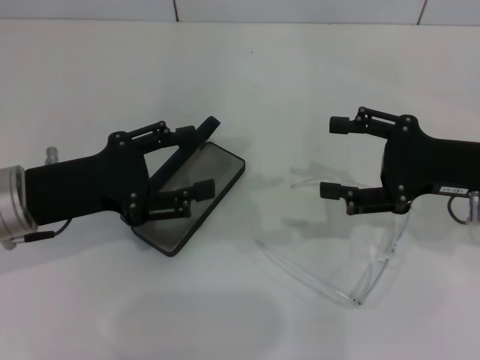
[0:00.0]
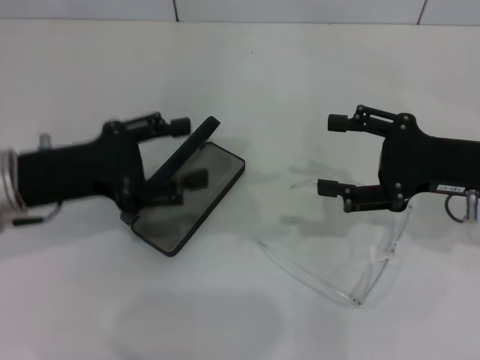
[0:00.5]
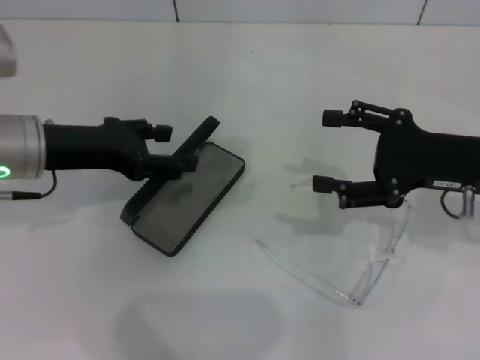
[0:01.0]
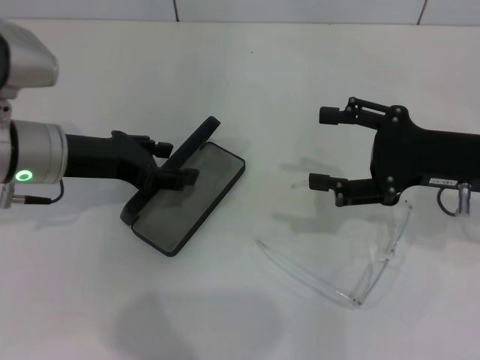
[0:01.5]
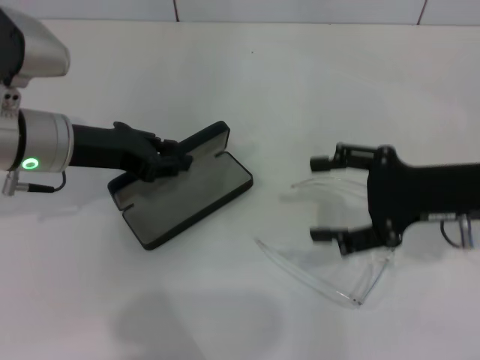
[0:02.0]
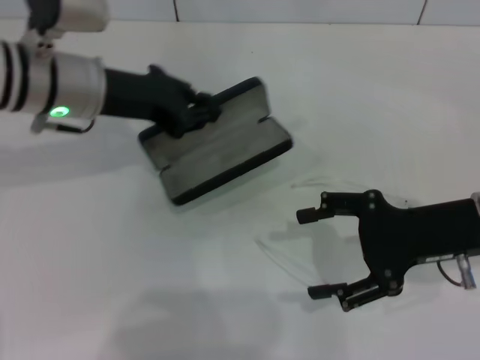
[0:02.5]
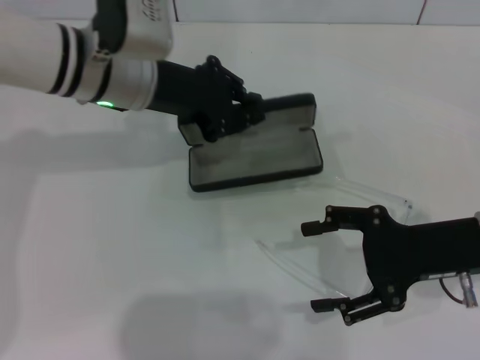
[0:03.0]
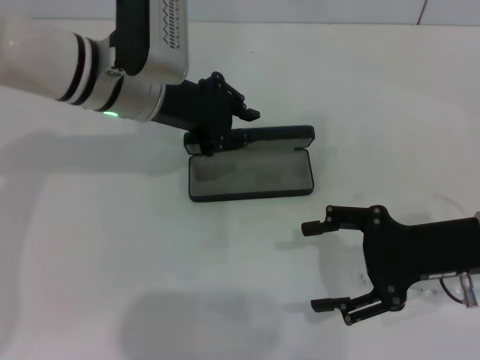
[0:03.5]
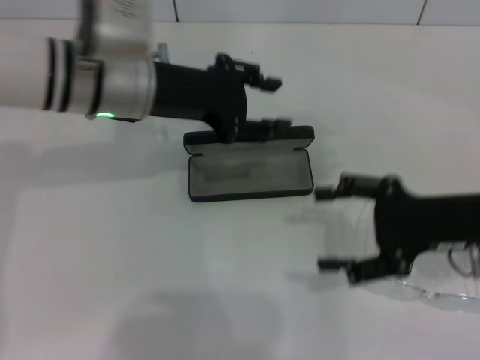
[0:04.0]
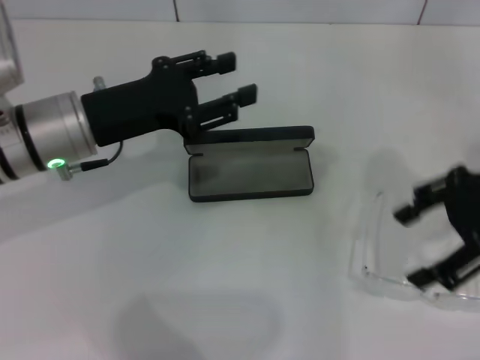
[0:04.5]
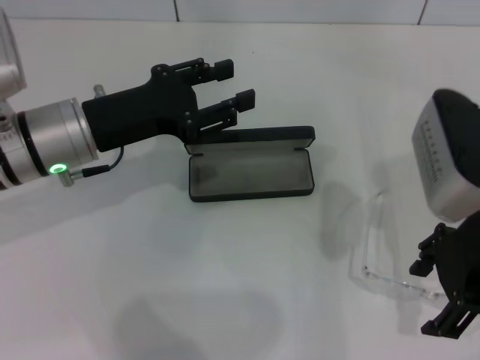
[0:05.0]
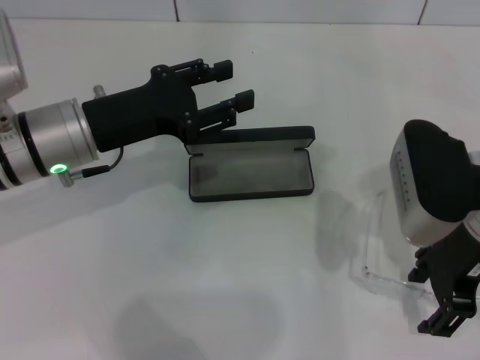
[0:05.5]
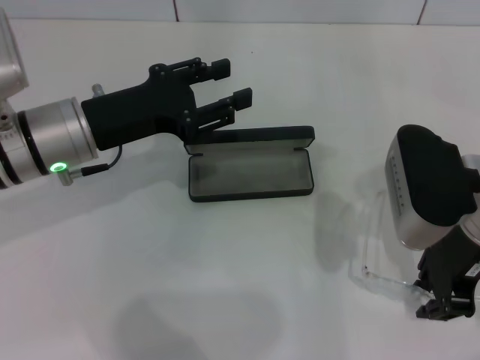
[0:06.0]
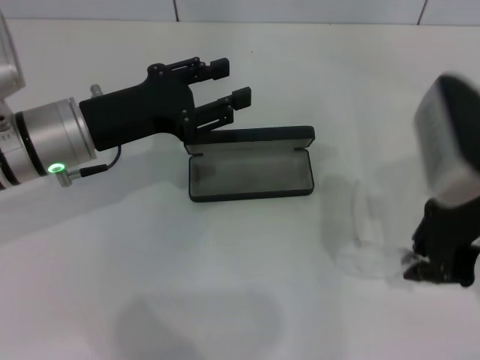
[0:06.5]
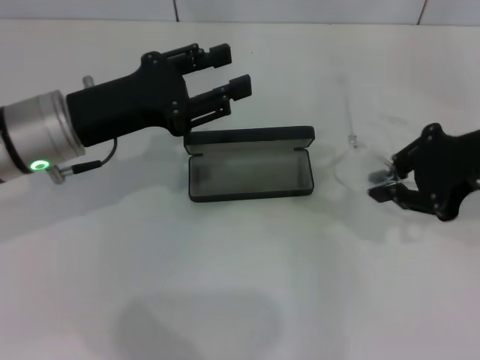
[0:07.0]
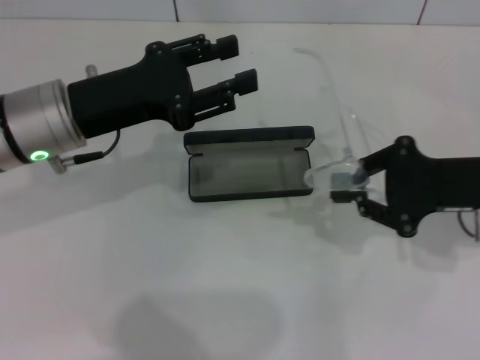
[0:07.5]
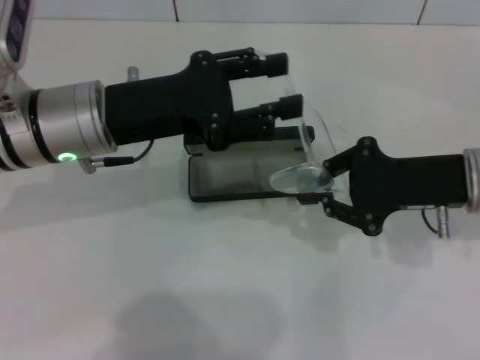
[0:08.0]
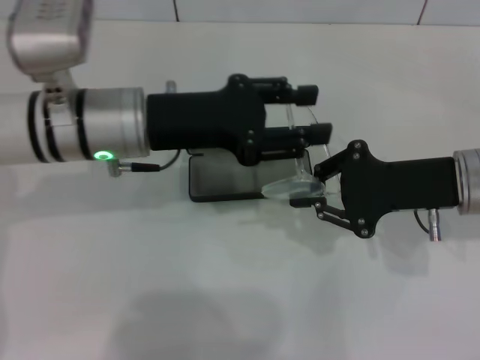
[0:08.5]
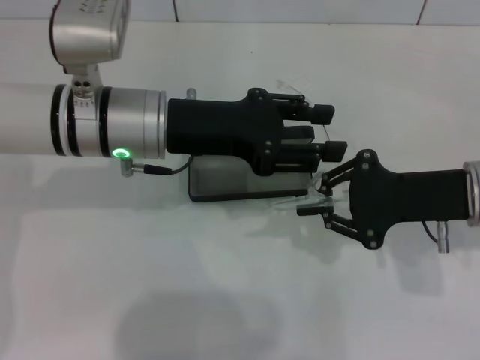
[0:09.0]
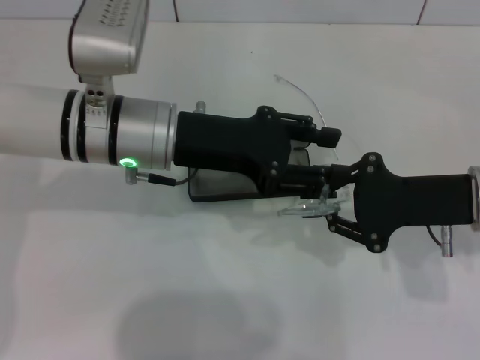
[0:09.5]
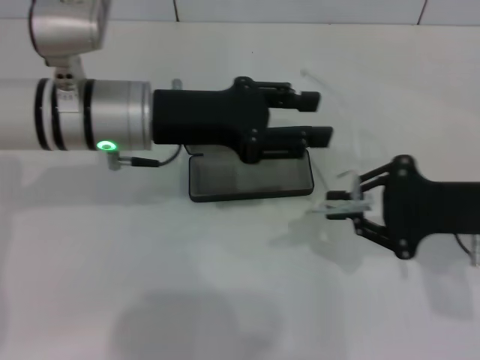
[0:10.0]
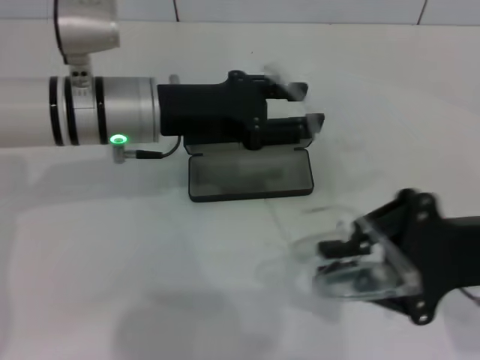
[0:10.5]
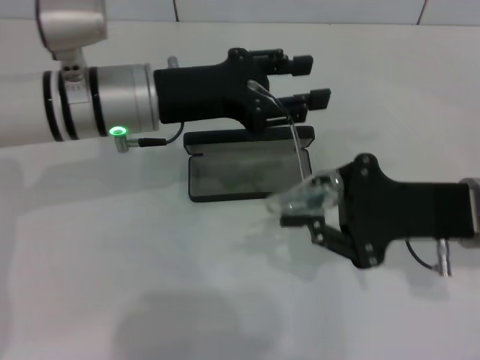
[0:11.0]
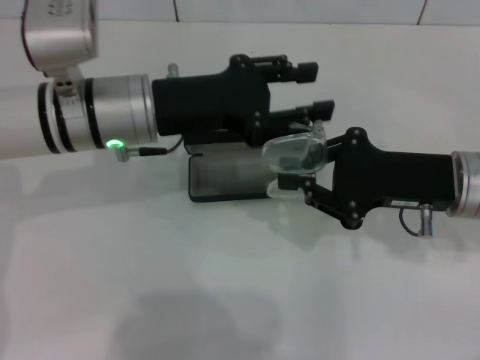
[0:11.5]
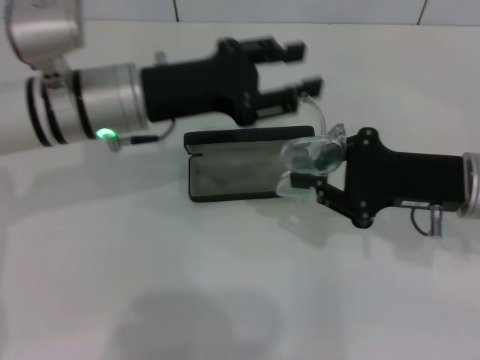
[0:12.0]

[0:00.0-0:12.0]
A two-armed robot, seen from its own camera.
Step, 0:00.0 to 0:01.5: Grab the glasses case with your left hand.
Step, 0:02.0 to 0:03.5: Place the glasses case in the center of the table with your left hand.
Step, 0:04.0 to 0:06.0: Grab the eyeglass frame with your right hand.
Step, 0:06.5 to 0:11.5: Fold the frame with your left hand.
0:00.0 to 0:02.0: The left gripper shifts some 5 cm forward, and closes up.
0:02.0 to 0:04.0: The left gripper shifts about 5 cm to the right, and closes, then opens again.
0:04.0 to 0:06.0: Both grippers move to the left, about 5 cm. The right gripper closes up.
0:06.0 to 0:08.0: The right gripper changes place by roughly 5 cm, and closes.

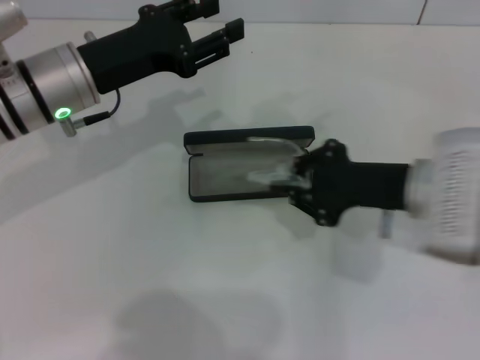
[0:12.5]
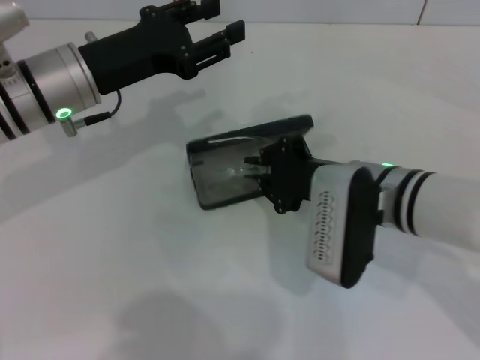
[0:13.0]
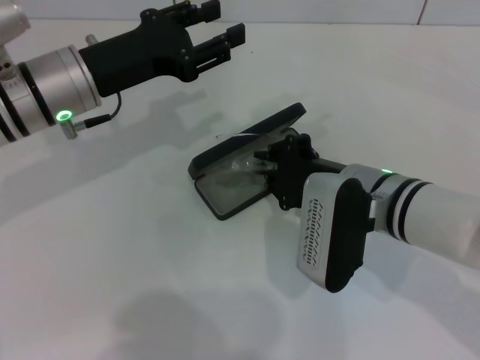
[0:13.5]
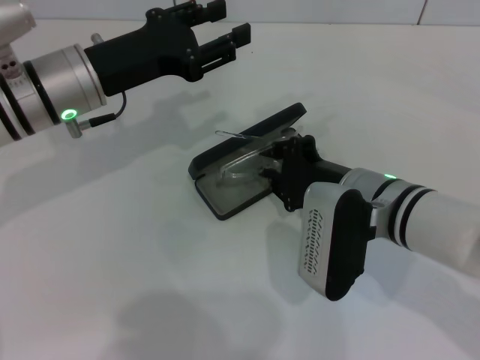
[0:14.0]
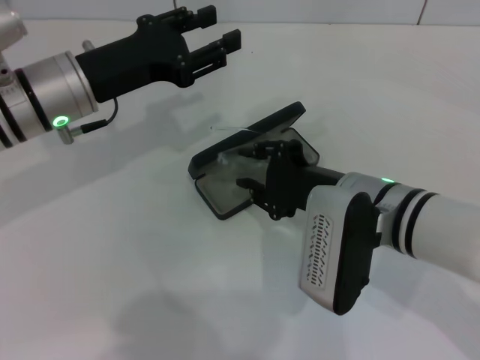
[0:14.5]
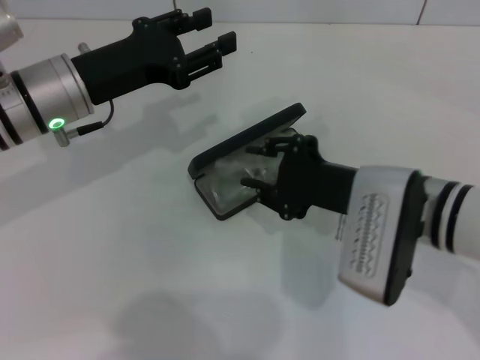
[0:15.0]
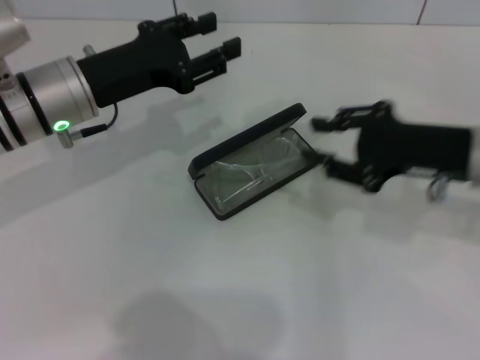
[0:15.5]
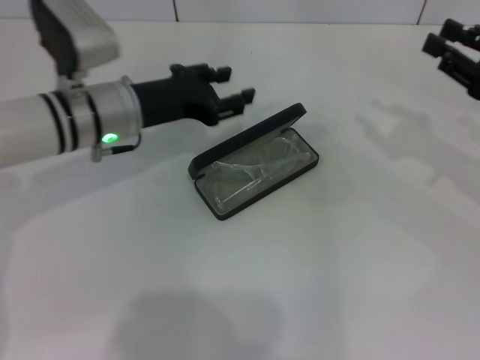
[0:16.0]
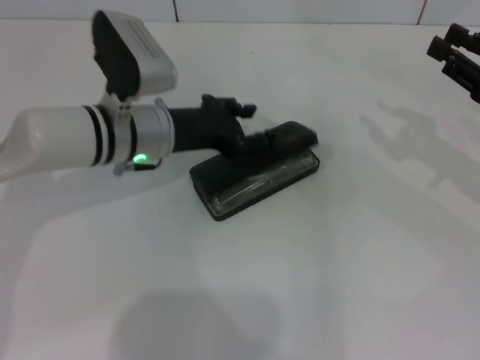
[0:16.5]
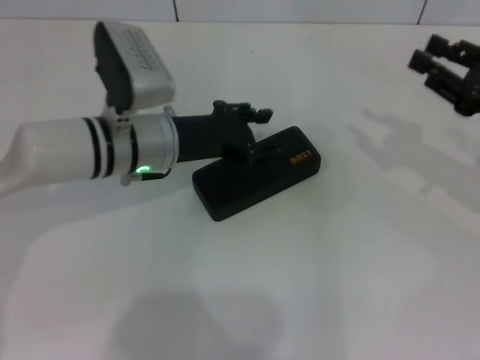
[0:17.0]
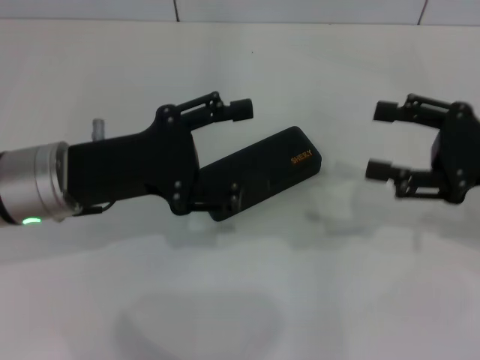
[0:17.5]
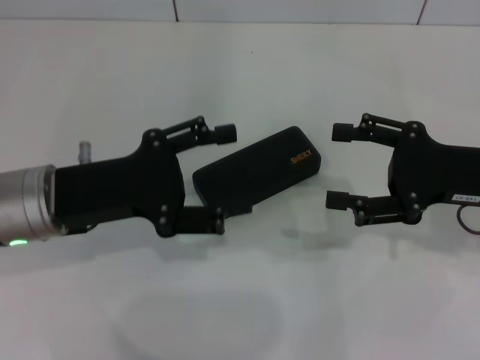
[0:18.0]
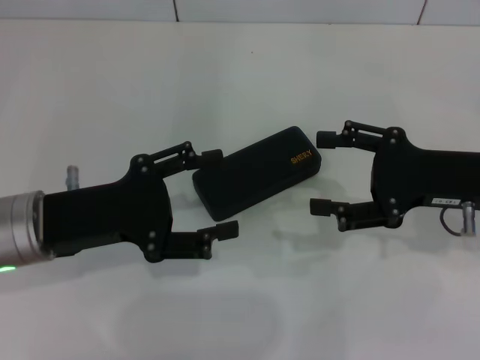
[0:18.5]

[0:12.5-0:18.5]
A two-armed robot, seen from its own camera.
Step, 0:12.5 to 0:15.0: Put the glasses into the case with your right hand.
Step, 0:15.5 to 0:17.0: Close the glasses case with your left hand.
0:12.5 to 0:14.5: The right gripper moves to the left, about 10 cm.
0:14.5 to 0:16.5: The left gripper goes about 5 cm to the right. Meanwhile the right gripper travels to the right by about 20 cm.
0:16.5 to 0:18.5: The right gripper heads to the left, covering approximately 10 cm, and opens up. The left gripper moves backward and to the left, approximately 15 cm, and opens.

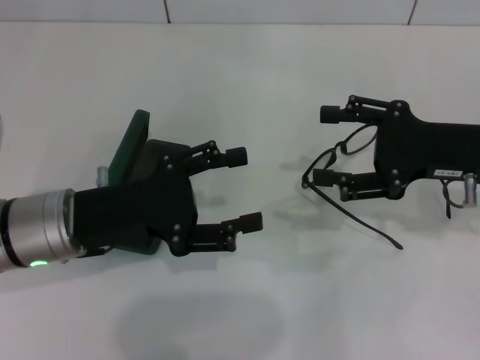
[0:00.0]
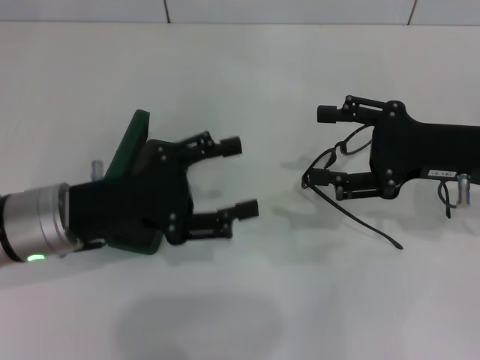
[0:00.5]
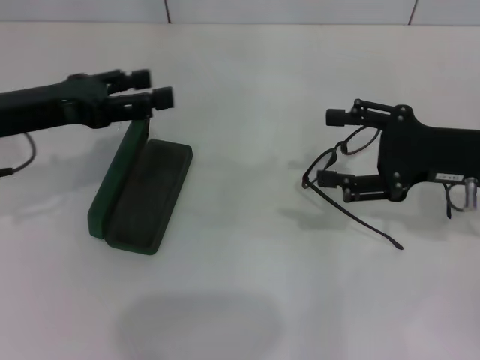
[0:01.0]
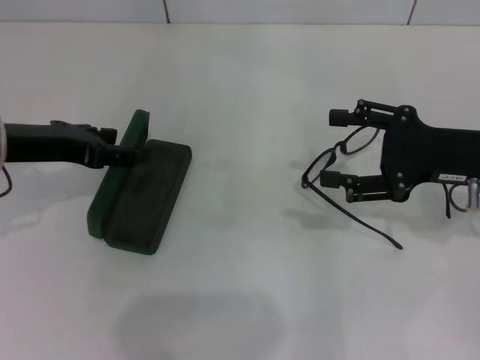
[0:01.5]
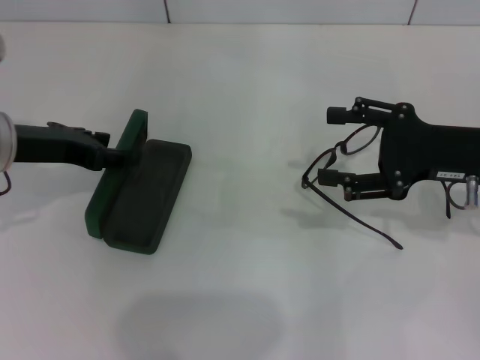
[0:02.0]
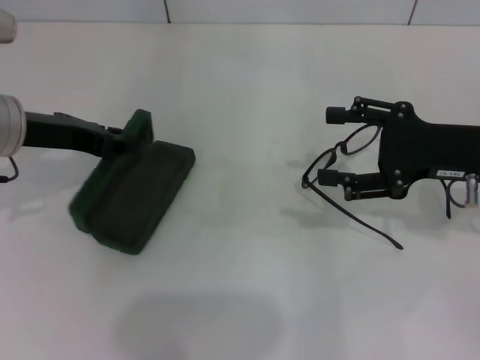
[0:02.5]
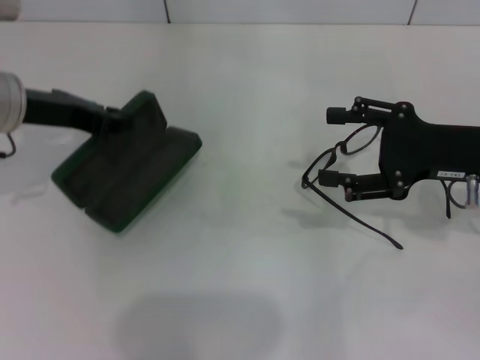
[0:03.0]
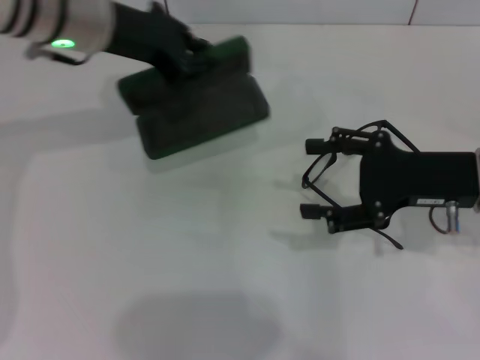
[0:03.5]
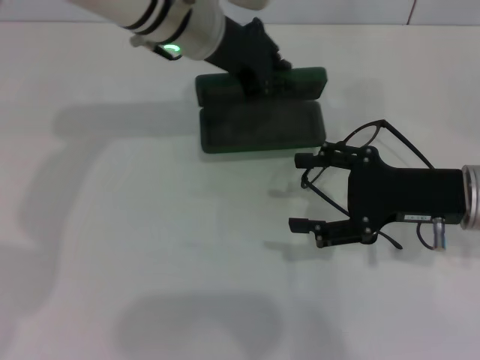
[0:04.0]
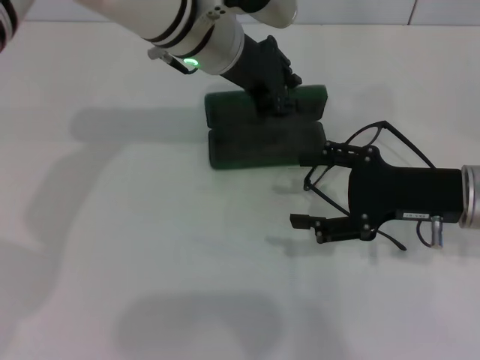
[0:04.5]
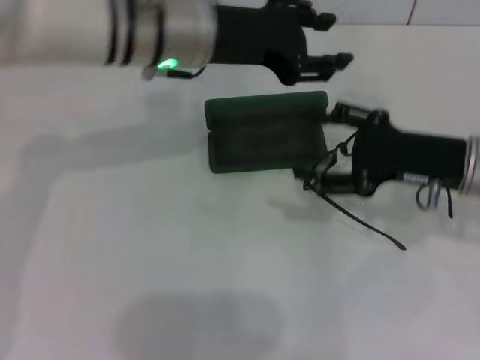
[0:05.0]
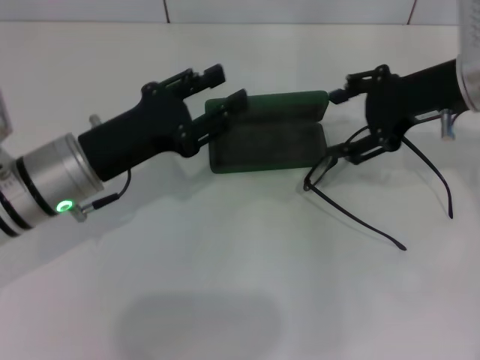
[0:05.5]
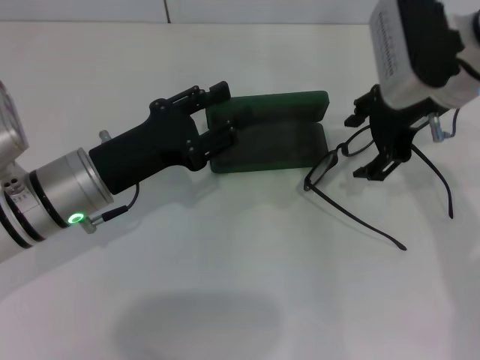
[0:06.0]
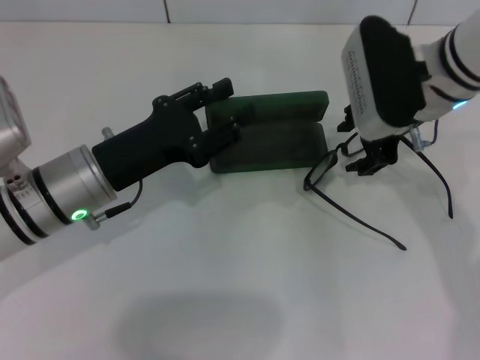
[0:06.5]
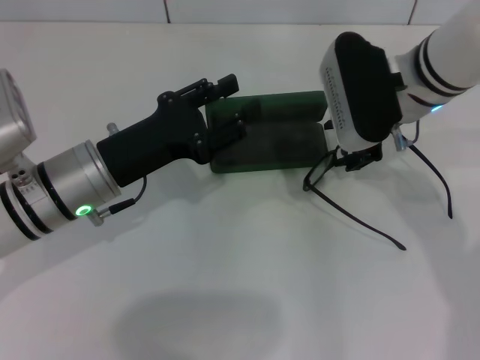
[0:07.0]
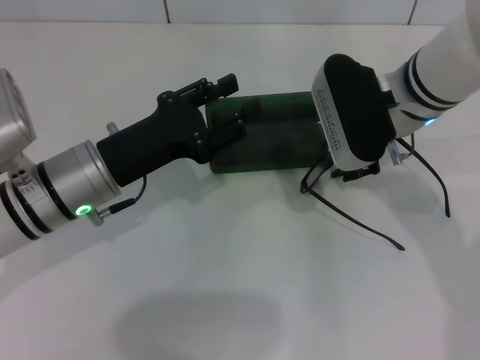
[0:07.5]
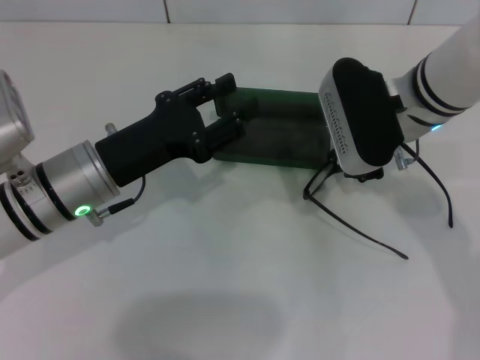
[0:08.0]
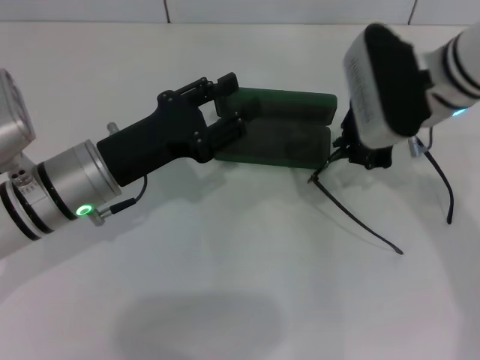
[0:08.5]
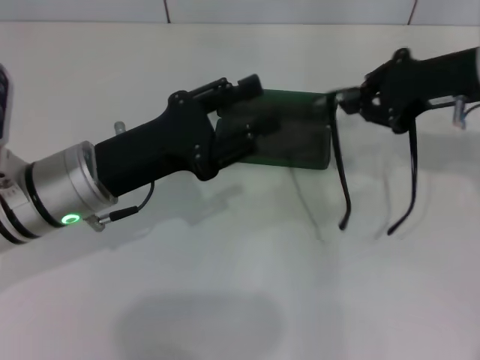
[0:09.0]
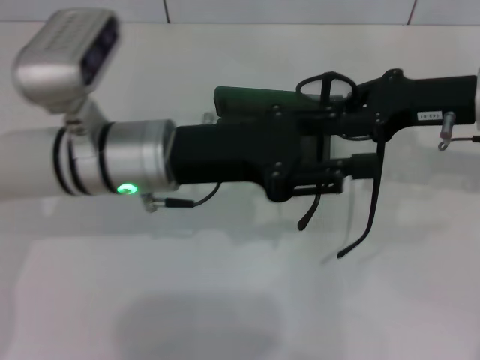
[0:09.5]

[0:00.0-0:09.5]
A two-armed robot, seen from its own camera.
Step, 0:00.0 to 0:02.5: Grab the glasses case with your left hand.
Step, 0:03.0 to 0:04.5: Place the glasses case in the center of the table with your left hand.
Step, 0:05.0 to 0:07.5: Grab the eyeglass frame with your right hand.
0:00.0 to 0:02.0: The left gripper is displaced forward, to the left and upward by roughly 10 cm.
0:02.0 to 0:04.0: The left gripper heads to the right and forward, covering approximately 20 cm, and closes.
0:04.0 to 0:05.5: The right gripper heads upward and forward, covering approximately 10 cm; the left gripper heads backward, to the left and downward, covering approximately 20 cm, and opens its fingers.
0:05.5 to 0:07.5: The right gripper shifts approximately 10 cm to the left, and closes.
0:07.5 to 0:09.5: The left gripper moves to the right and upward, approximately 10 cm, while the right gripper goes some 10 cm to the right, and closes.
